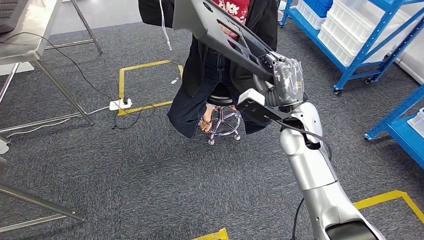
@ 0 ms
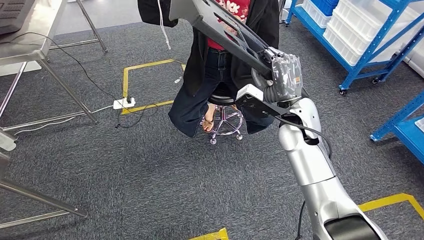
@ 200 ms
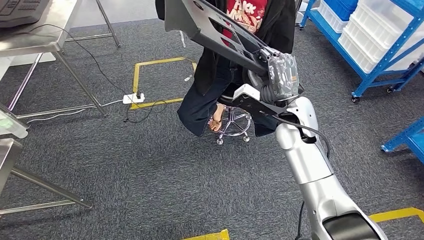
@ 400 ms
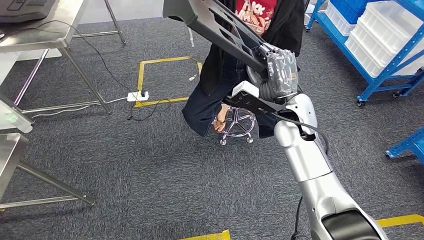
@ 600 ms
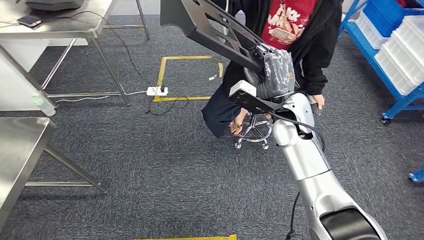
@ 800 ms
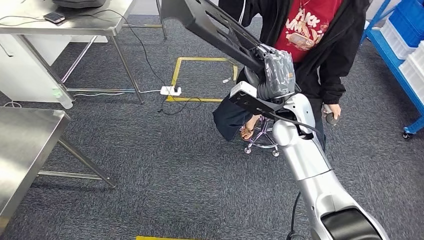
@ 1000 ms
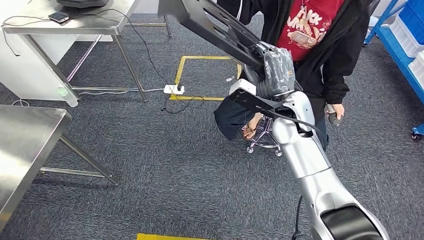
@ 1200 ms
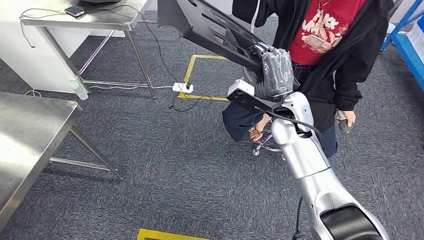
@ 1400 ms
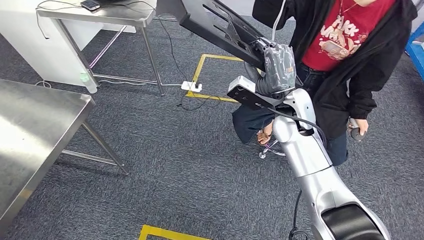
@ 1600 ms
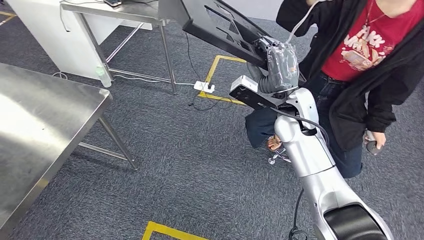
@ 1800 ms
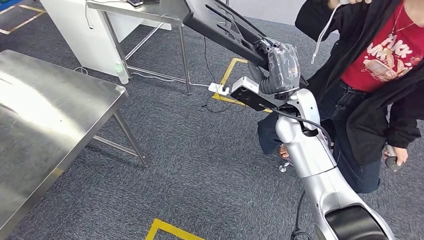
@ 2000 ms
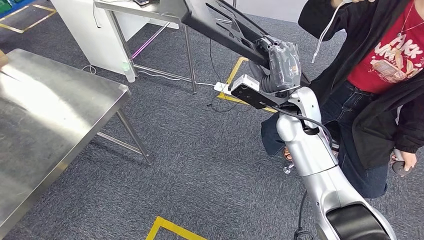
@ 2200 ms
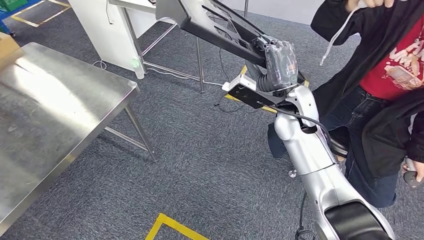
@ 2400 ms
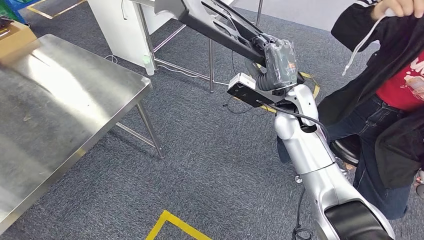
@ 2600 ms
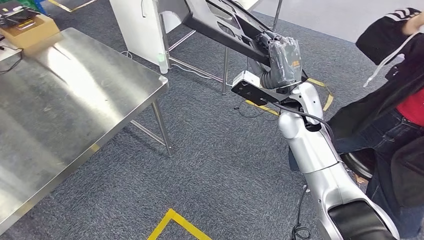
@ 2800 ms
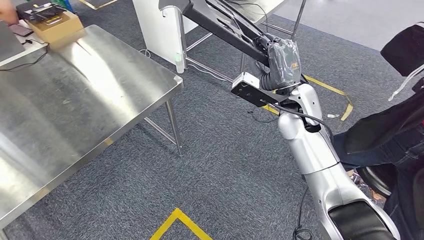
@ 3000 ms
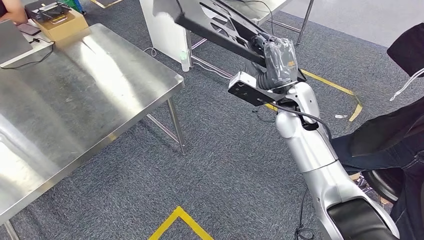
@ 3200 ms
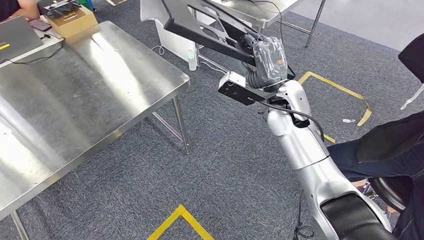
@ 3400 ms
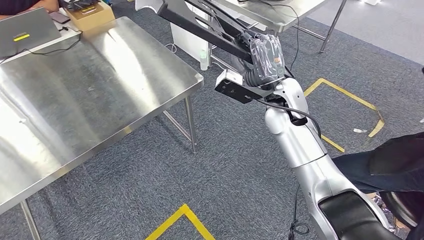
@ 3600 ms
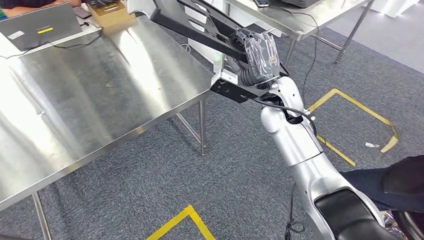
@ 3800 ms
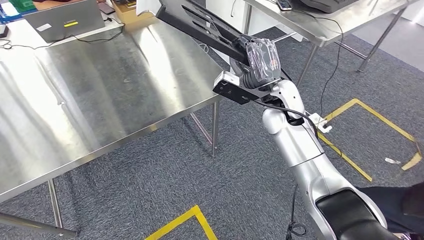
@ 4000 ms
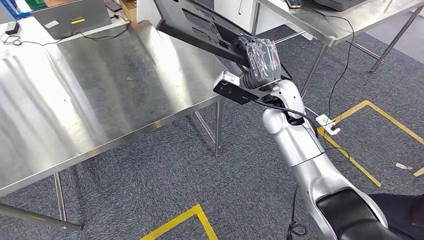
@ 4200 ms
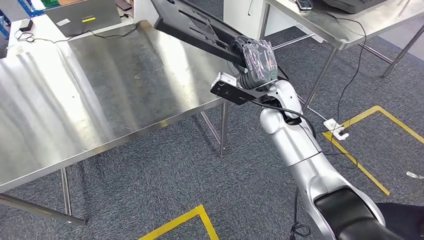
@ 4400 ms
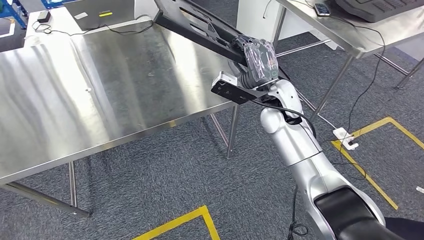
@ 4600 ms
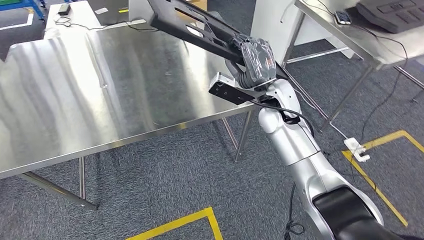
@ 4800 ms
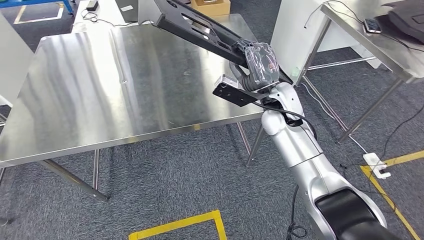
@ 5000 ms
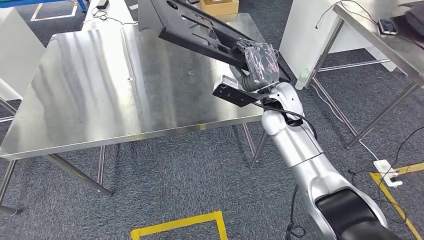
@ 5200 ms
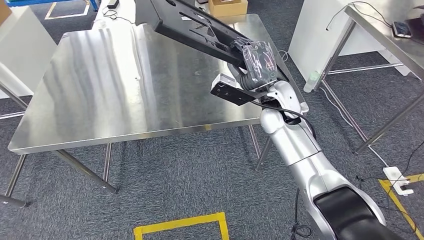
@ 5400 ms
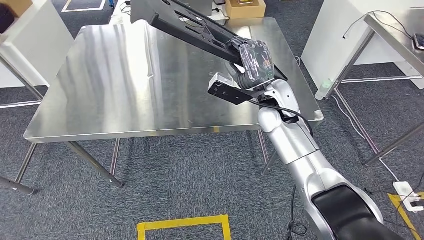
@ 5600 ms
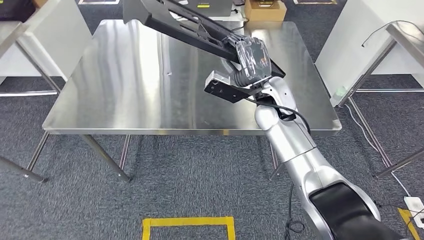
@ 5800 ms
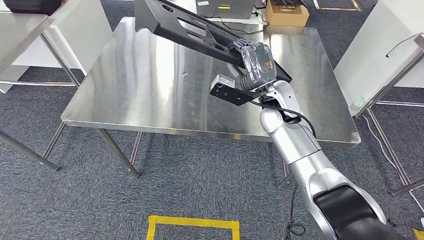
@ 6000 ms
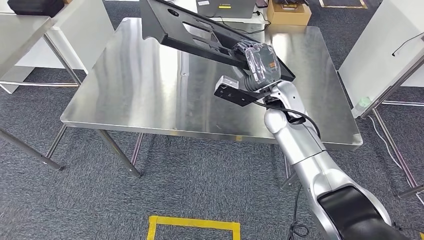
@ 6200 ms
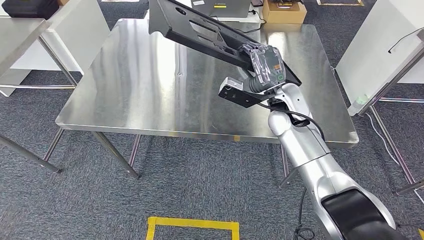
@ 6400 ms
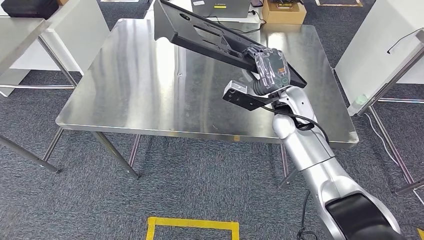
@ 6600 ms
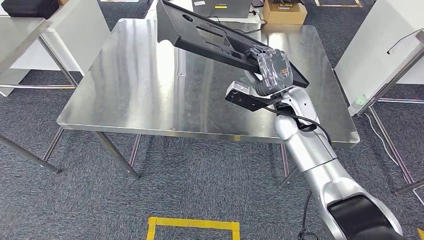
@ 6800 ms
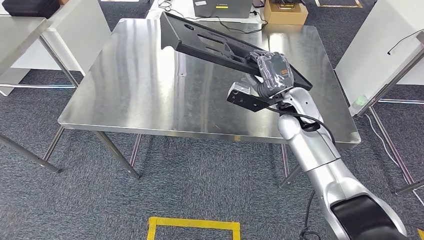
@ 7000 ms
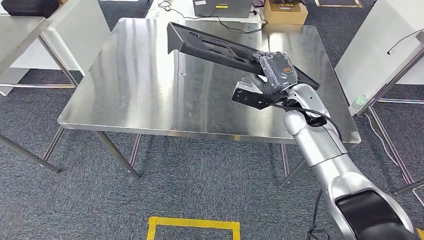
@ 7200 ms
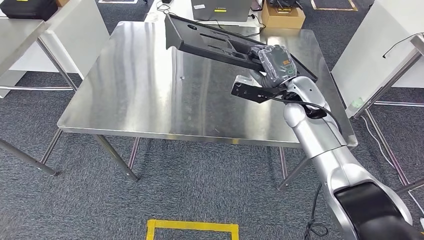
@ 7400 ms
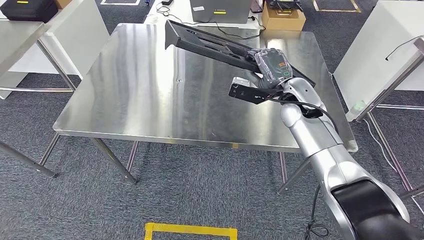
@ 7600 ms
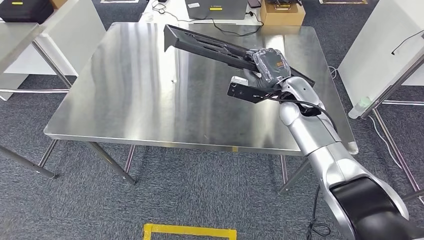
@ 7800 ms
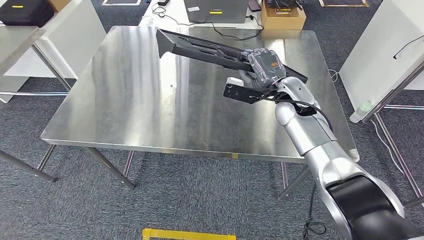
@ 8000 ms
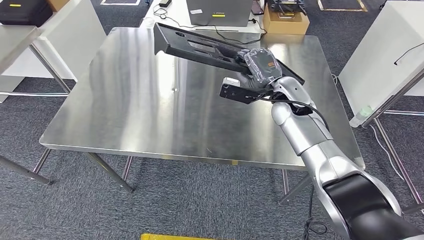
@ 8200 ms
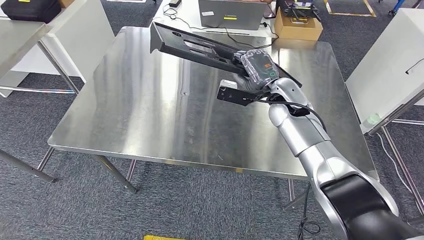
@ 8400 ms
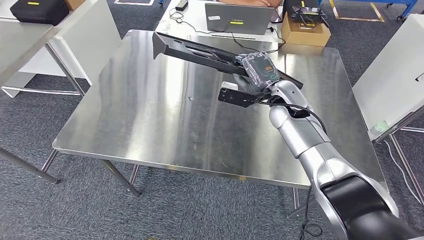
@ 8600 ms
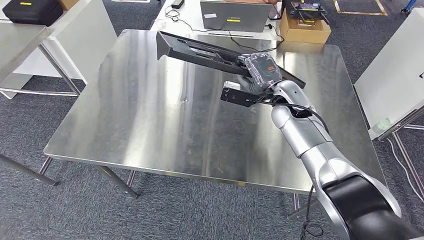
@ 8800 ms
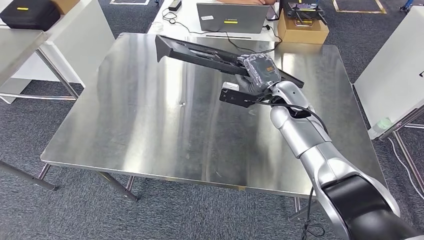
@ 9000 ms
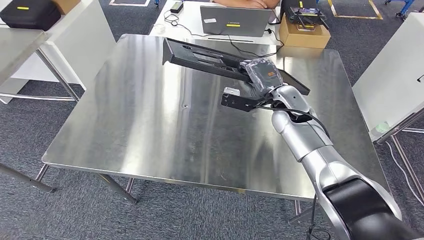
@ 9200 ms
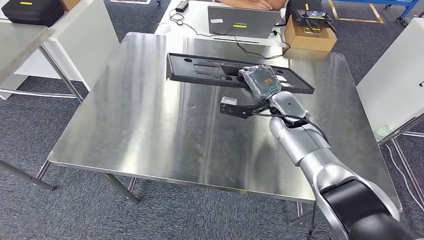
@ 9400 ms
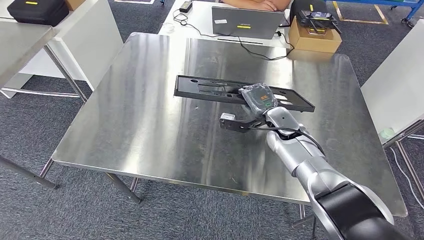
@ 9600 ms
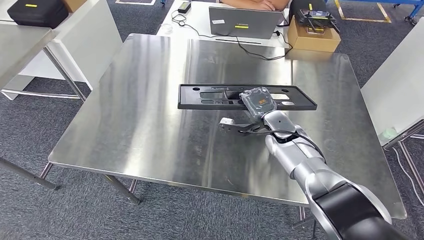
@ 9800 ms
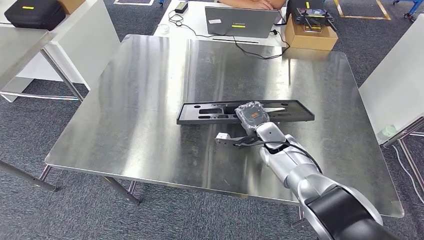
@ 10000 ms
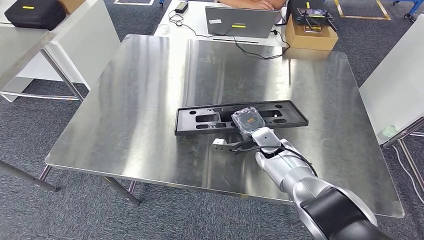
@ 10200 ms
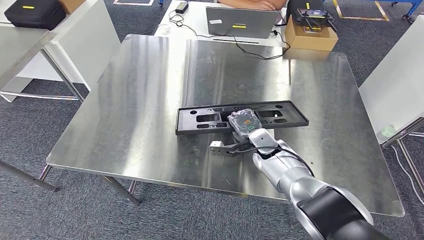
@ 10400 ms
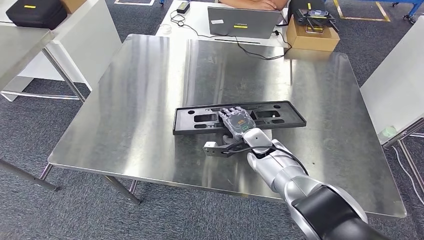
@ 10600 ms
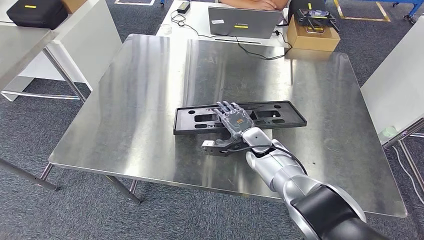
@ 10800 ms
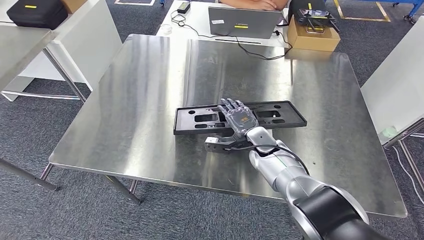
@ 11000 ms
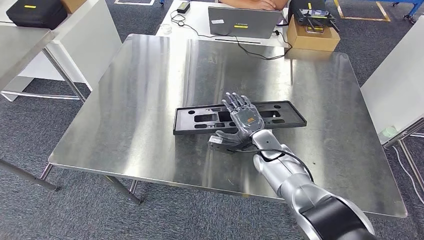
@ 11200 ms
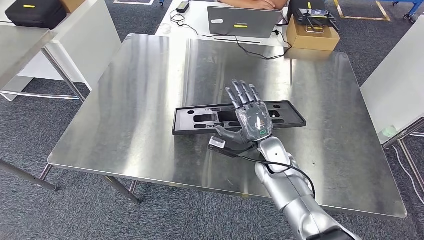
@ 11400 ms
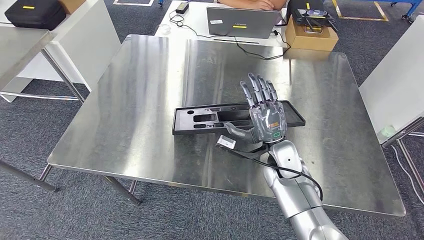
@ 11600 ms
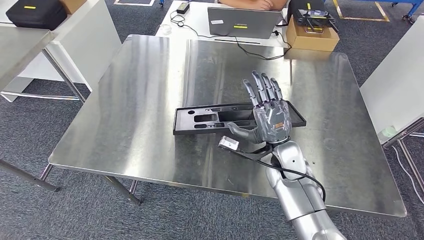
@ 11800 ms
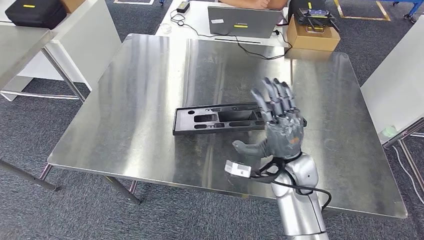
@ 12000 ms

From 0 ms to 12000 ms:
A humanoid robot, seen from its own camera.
From 10400 ms to 12000 ms: The right hand moves backward and upward, about 15 cm.

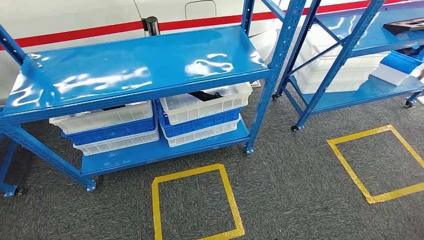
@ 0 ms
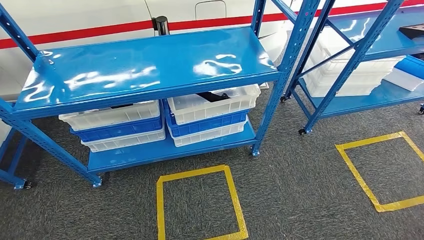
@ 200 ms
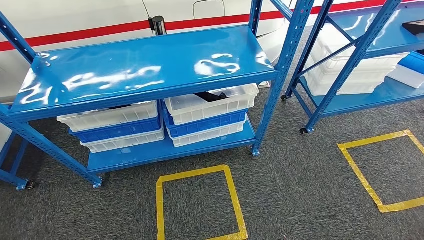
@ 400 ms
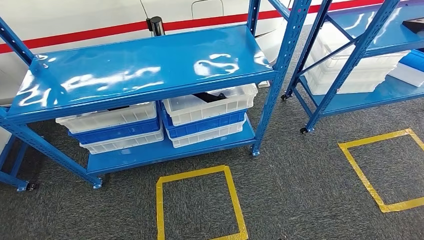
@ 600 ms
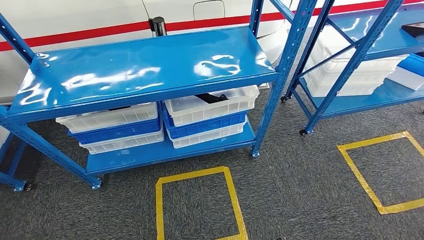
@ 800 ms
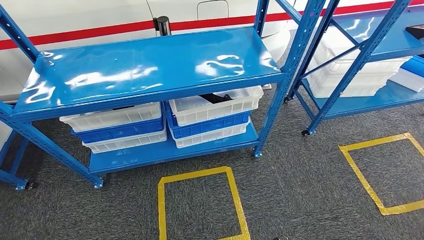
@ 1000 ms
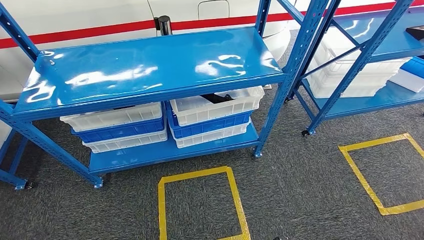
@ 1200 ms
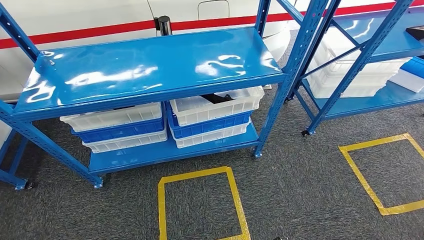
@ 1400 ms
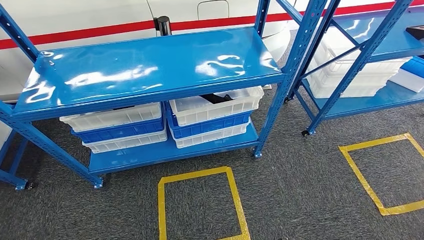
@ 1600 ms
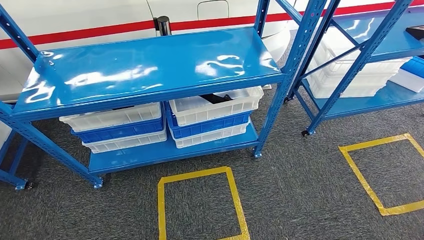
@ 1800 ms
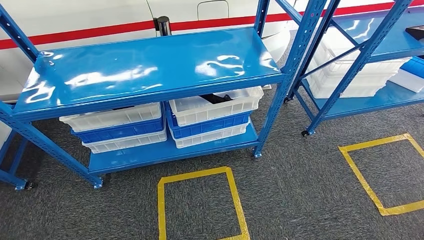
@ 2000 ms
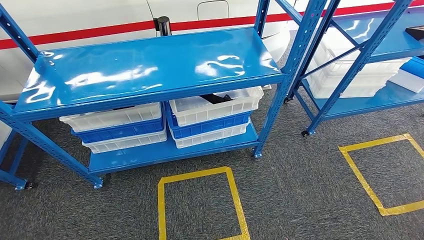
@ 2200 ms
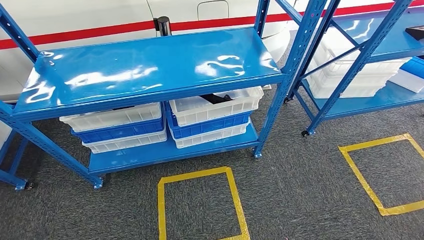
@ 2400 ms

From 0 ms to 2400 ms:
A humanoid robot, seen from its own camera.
Step, from 0 ms to 2400 ms: Move to the initial position of the shelf.
From 1200 ms to 2400 ms: The hands move only a little.
